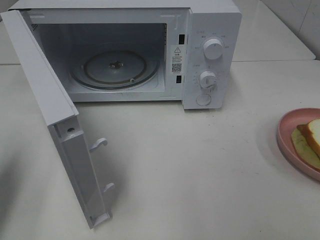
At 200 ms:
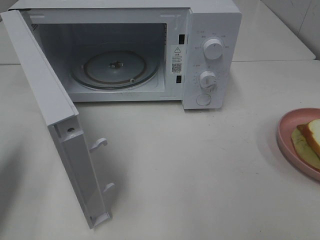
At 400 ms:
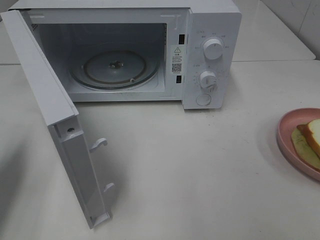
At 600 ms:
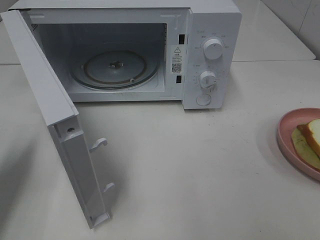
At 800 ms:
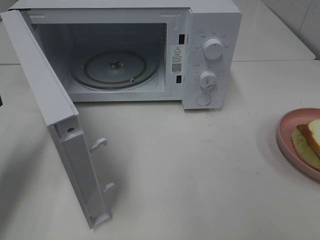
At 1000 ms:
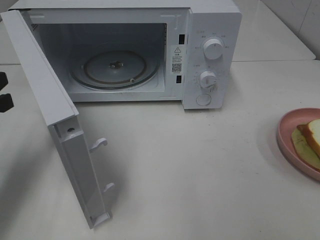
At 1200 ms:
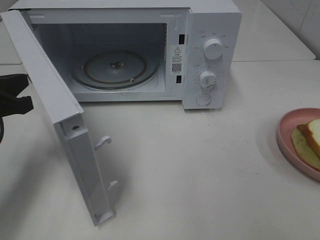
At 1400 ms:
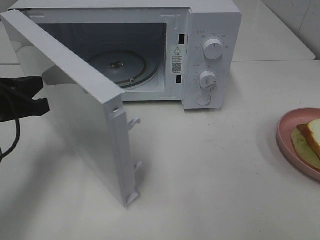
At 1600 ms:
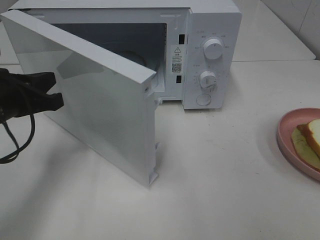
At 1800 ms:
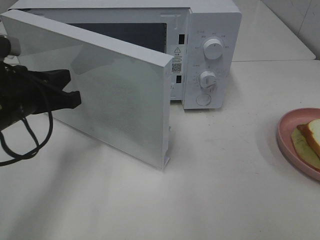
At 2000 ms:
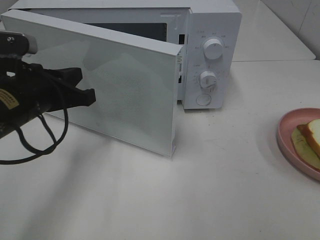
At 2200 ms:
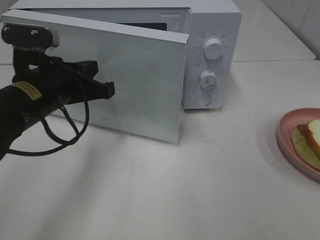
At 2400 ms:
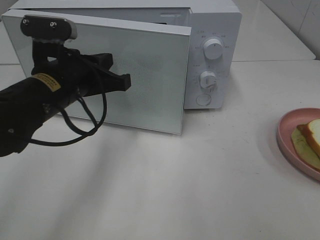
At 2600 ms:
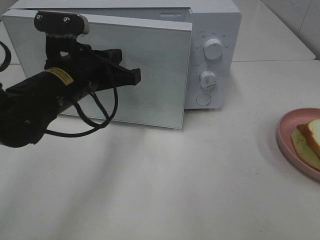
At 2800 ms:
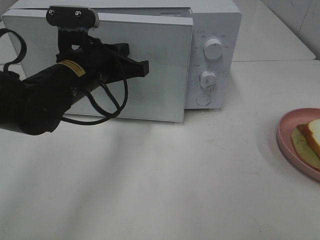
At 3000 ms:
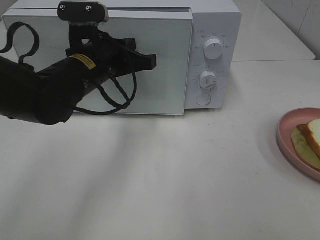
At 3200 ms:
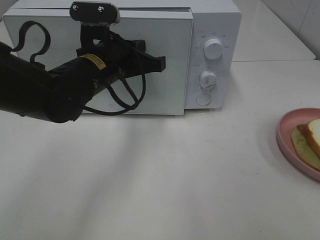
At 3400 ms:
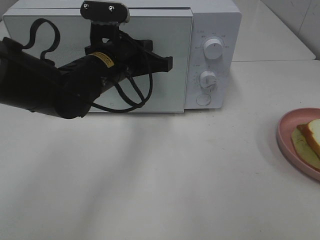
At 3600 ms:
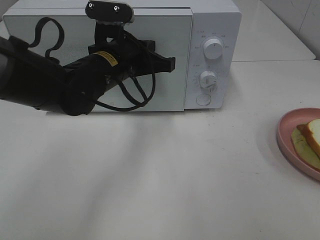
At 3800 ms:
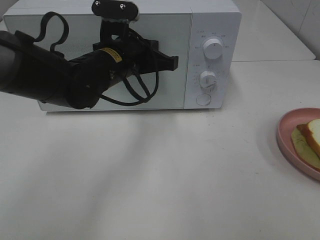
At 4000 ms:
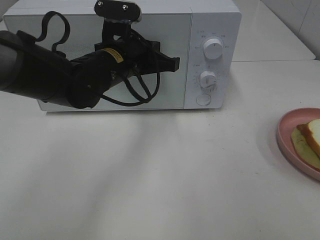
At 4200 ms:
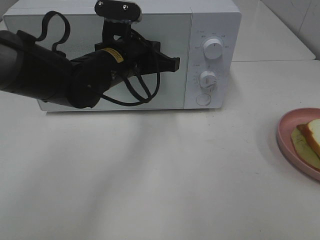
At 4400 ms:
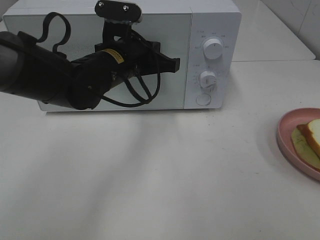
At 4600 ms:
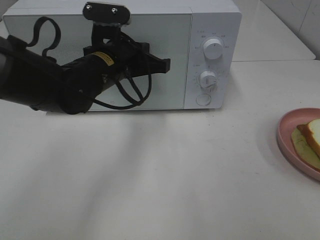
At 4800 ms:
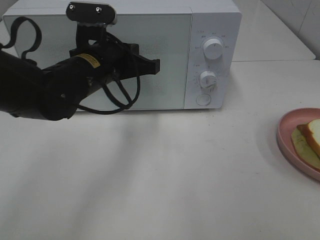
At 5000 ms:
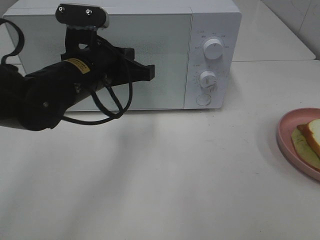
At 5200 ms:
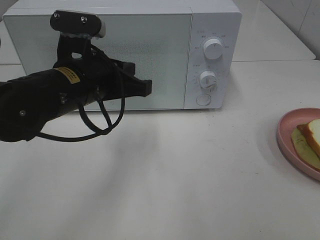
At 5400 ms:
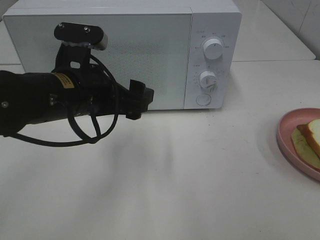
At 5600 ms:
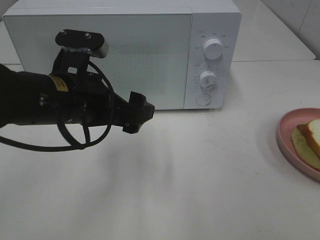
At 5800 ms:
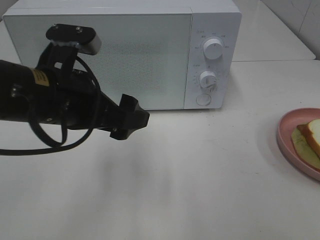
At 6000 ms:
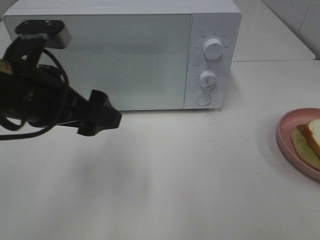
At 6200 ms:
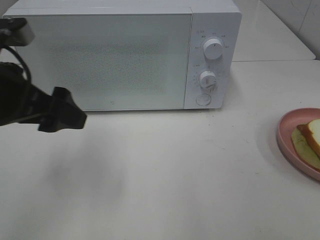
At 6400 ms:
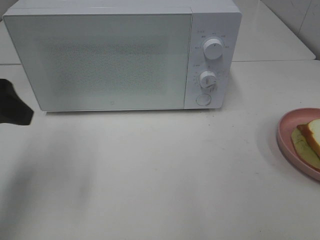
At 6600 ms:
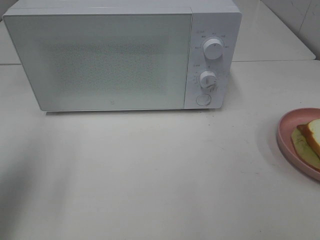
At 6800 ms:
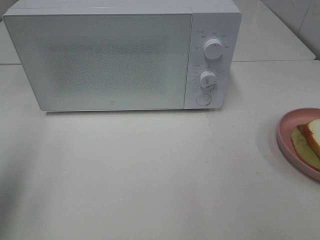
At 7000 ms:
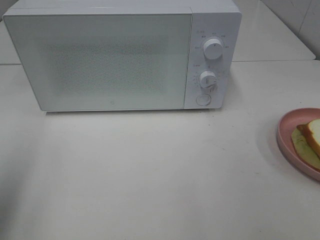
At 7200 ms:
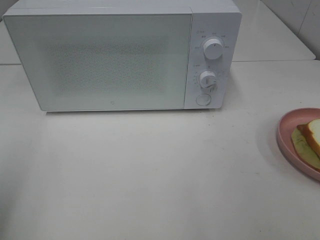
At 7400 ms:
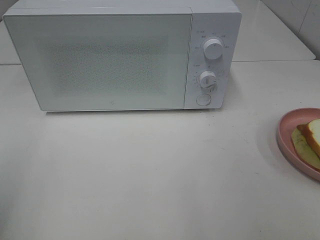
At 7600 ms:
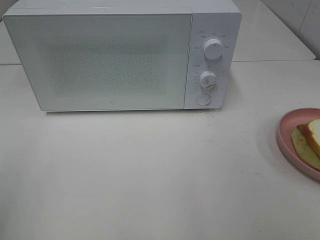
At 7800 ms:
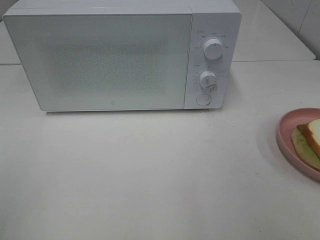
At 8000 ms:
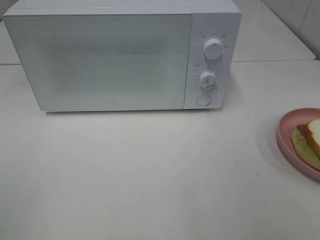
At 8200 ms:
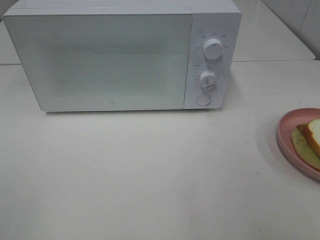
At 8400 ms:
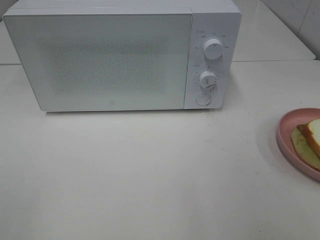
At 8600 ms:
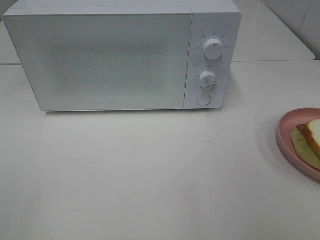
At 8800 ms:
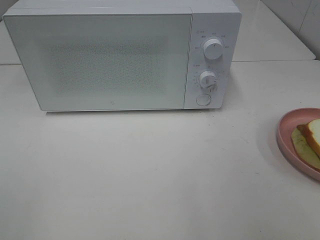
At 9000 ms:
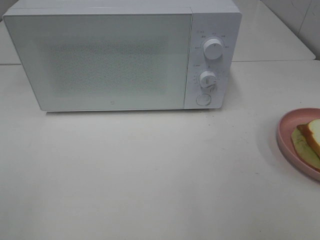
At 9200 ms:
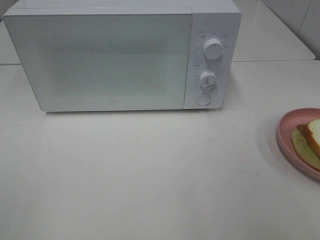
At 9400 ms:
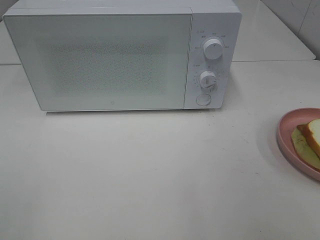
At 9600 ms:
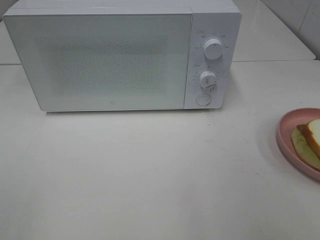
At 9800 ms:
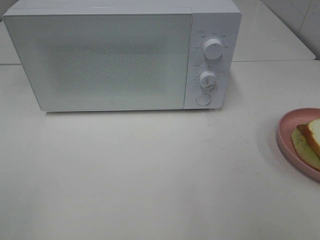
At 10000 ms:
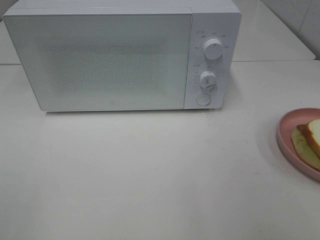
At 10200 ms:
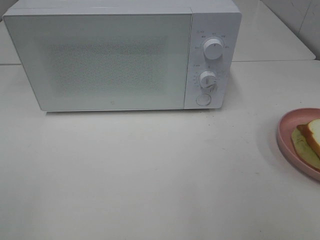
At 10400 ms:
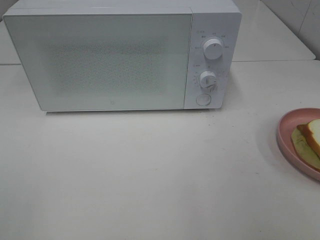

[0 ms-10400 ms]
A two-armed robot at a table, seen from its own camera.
Task of the whole recording: Heat Sandwich.
Step, 0 ms to 5800 ms: Left hand: close the microwave door.
0 ms to 1400 ms: The left gripper is displaced to the right and forward by roughly 10 cm.
1400 ms to 3000 ms: The left gripper moves to the right and forward, about 15 cm.
3000 ms to 4400 ms: There are only small adjustments of the grippers.
4400 ms to 6000 ms: The left gripper travels backward, to the left and upward by roughly 15 cm, and opens up.
6000 ms to 7400 ms: The left gripper heads to the left and backward, covering about 20 cm.
9000 ms to 10400 ms: Both grippers stay put.

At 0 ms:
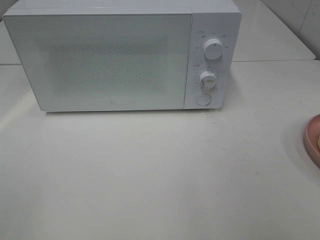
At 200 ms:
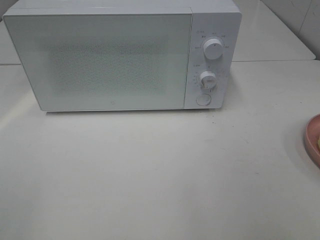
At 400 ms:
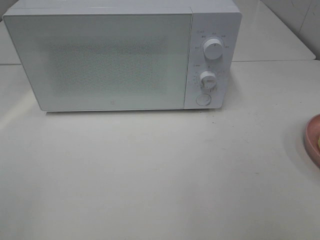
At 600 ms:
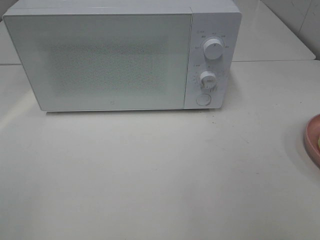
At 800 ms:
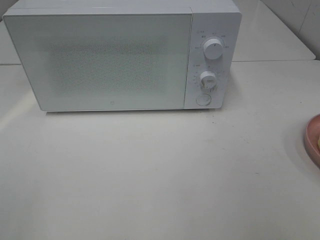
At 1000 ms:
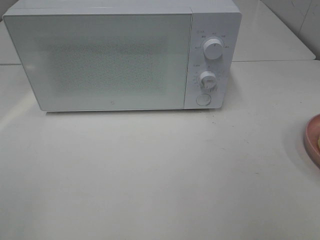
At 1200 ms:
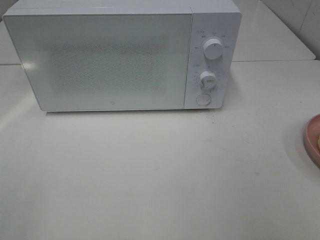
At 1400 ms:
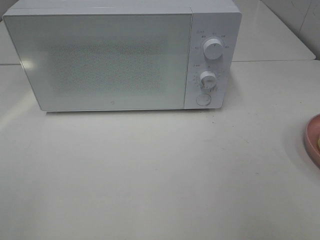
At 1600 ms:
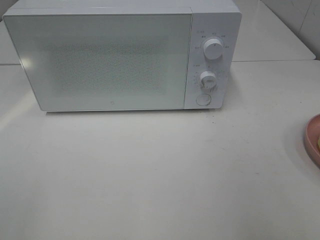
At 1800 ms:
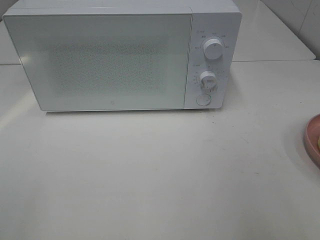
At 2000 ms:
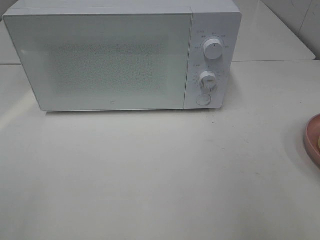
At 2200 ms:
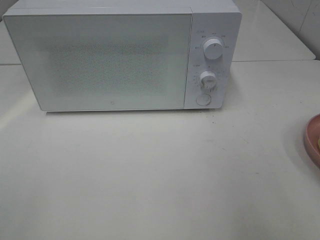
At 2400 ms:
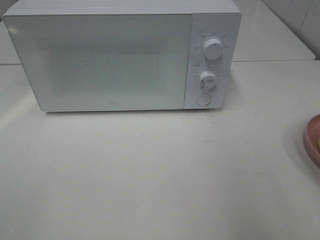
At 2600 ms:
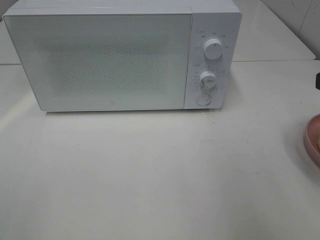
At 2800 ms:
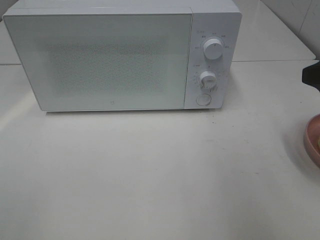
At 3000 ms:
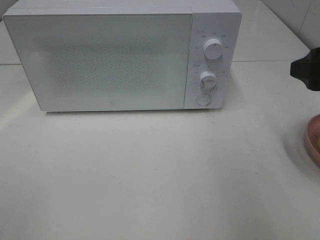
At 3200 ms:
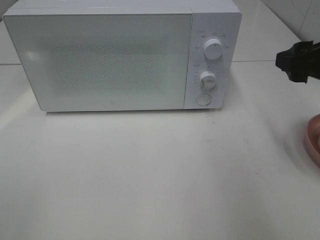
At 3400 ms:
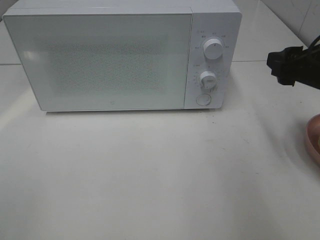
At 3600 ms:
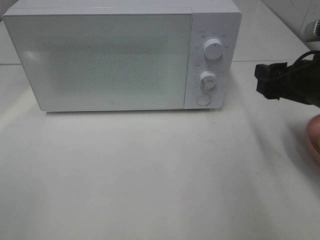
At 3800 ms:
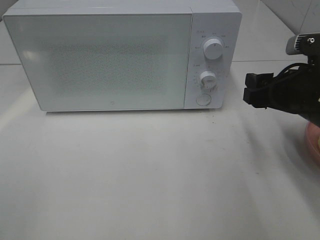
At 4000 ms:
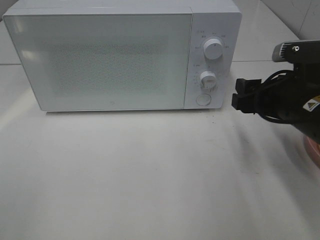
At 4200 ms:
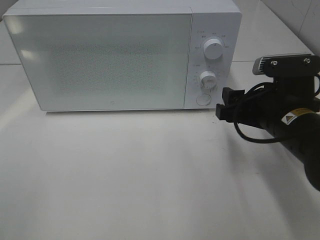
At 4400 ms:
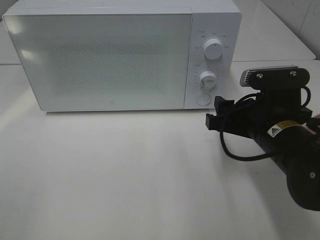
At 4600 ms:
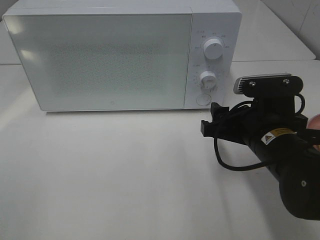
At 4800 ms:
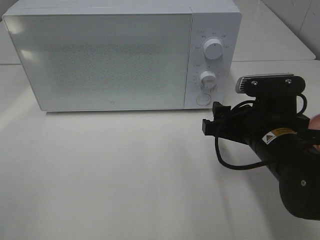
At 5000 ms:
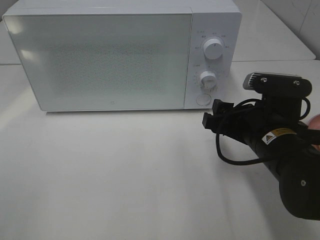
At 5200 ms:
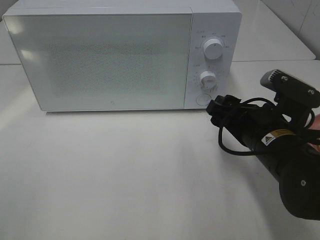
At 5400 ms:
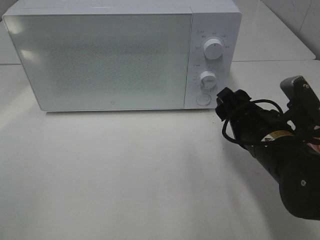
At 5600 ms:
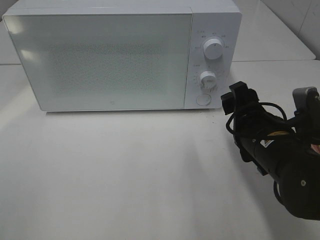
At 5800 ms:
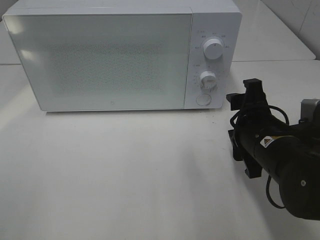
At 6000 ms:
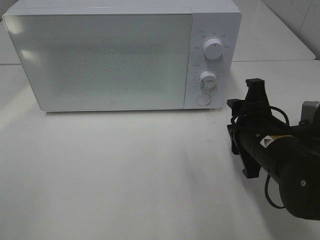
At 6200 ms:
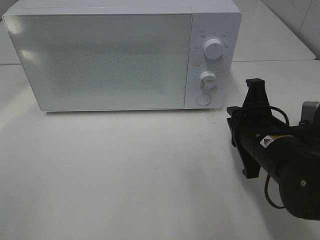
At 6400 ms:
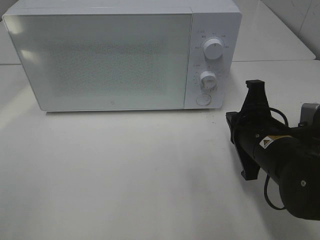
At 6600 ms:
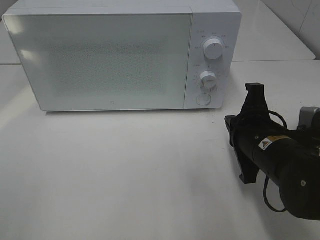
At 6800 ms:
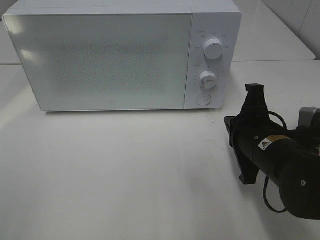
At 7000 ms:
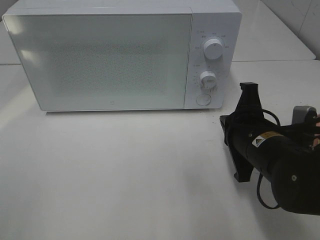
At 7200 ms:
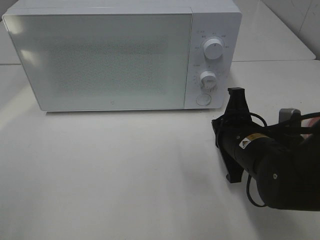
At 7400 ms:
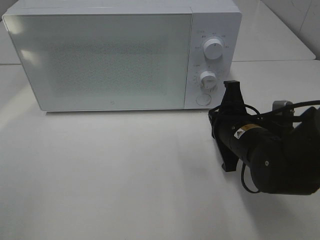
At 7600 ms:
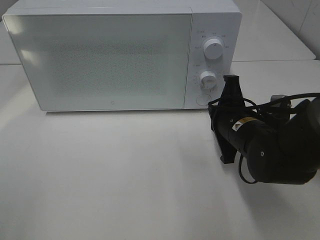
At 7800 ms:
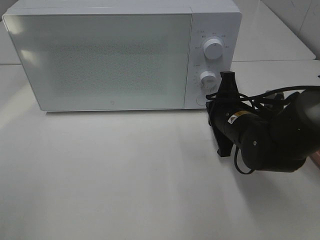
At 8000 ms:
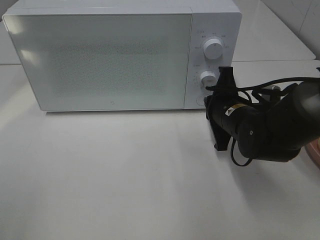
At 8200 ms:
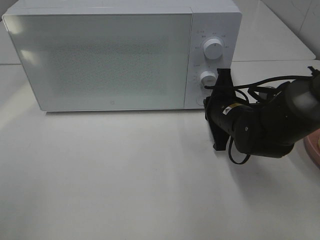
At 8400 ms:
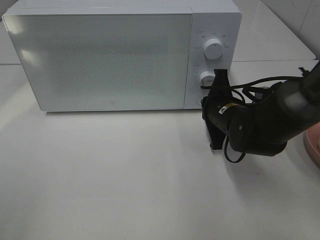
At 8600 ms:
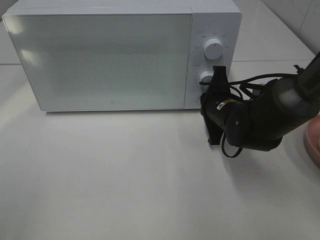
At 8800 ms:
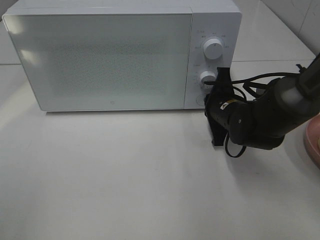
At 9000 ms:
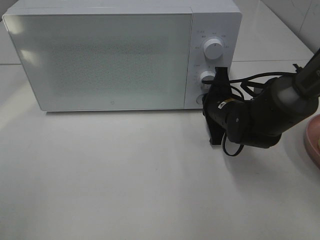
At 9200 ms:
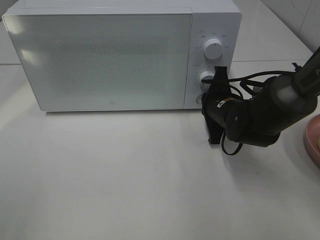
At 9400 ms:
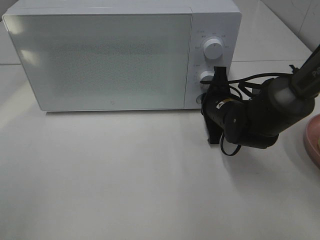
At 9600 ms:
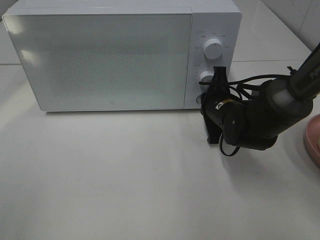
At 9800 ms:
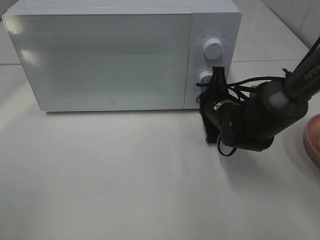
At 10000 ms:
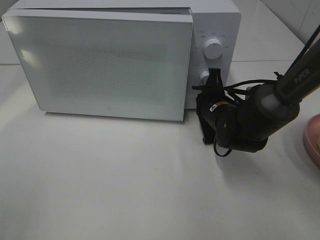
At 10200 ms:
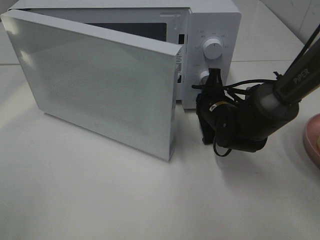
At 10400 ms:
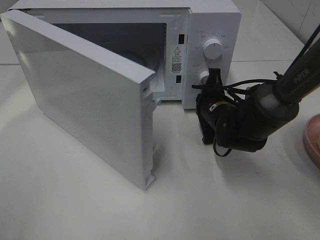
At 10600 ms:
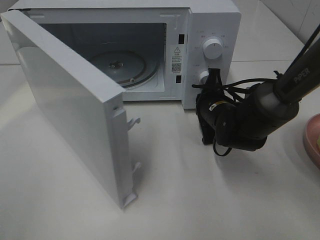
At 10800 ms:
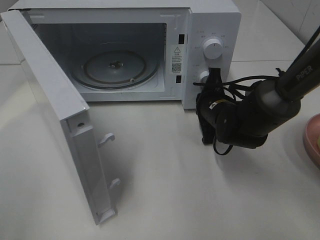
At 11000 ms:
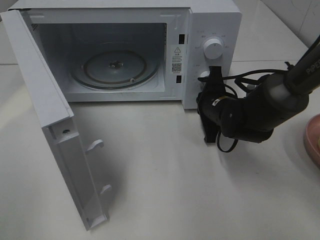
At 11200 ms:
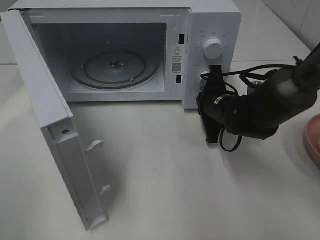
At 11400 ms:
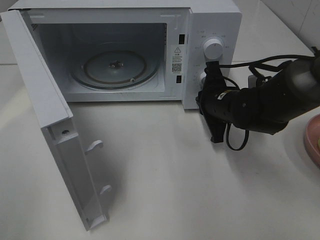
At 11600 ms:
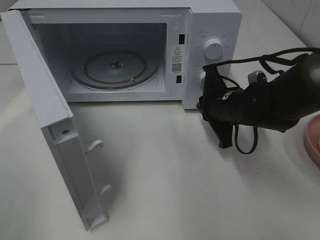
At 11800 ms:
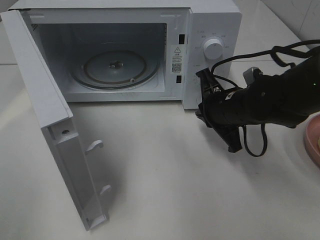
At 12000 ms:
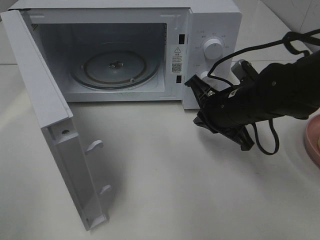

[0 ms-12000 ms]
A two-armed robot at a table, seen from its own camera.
Task of the whole recording: Heat Sandwich.
Step, 0 ms to 11400 ms: Right hand: press the switch.
1600 ms to 3000 ms: The right gripper heads forward, covering approximately 15 cm.
3000 ms to 4400 ms: The right gripper is displaced downward and to the left by roughly 15 cm.
6000 ms to 7600 ms: The right gripper shifts some 5 cm forward, and closes up.
7600 ms to 9000 ms: The right gripper goes some 5 cm forward.
10400 ms to 12000 ms: The right gripper travels upward and backward by approximately 10 cm.
